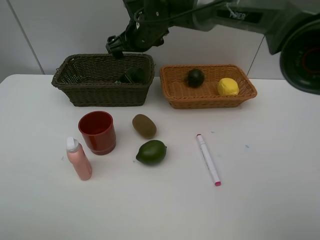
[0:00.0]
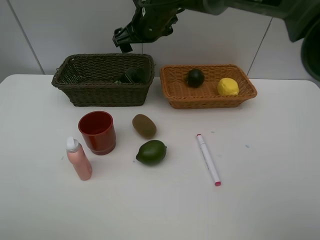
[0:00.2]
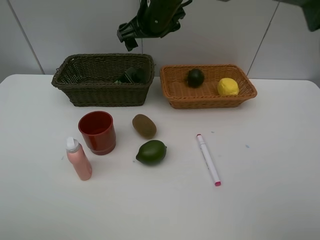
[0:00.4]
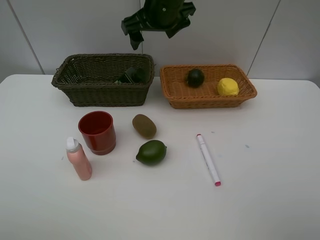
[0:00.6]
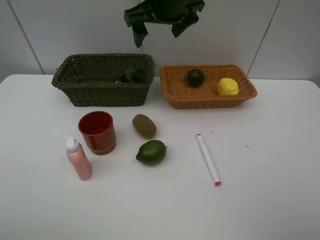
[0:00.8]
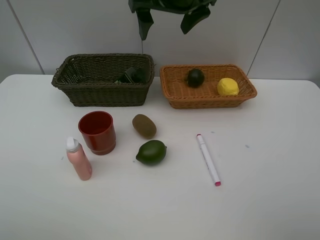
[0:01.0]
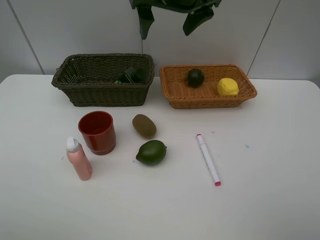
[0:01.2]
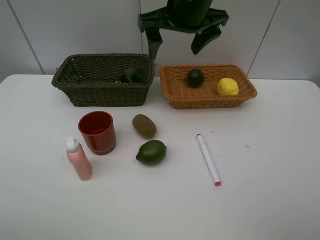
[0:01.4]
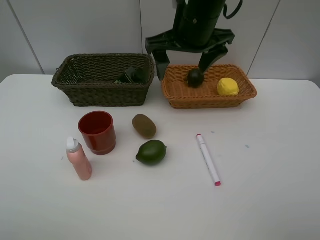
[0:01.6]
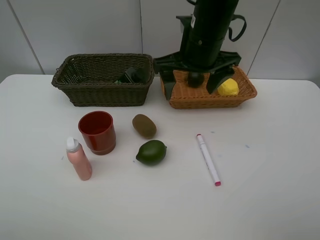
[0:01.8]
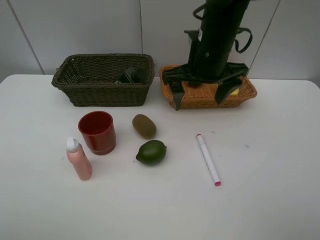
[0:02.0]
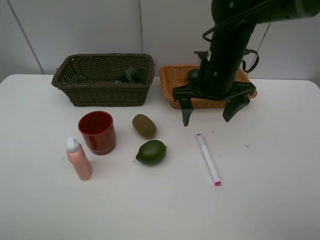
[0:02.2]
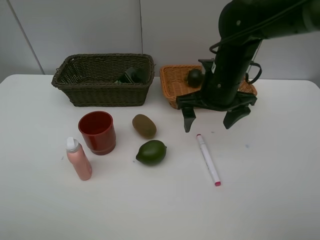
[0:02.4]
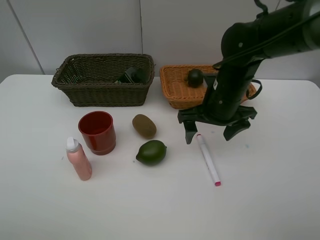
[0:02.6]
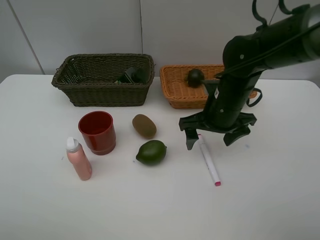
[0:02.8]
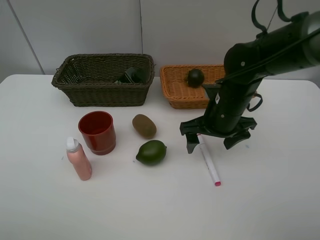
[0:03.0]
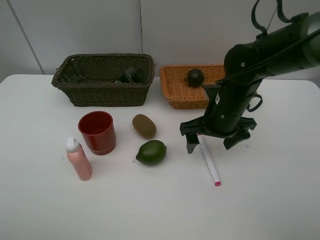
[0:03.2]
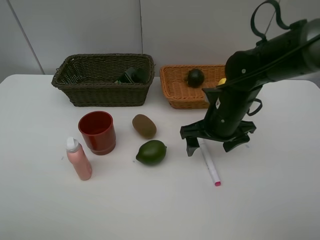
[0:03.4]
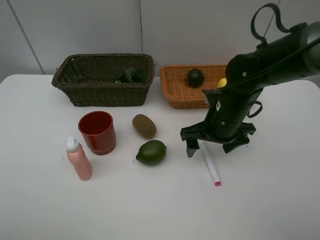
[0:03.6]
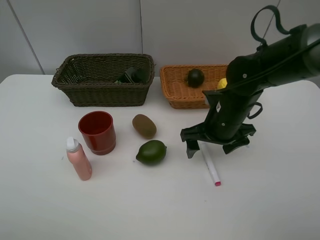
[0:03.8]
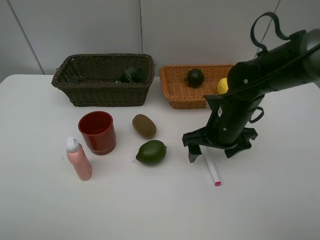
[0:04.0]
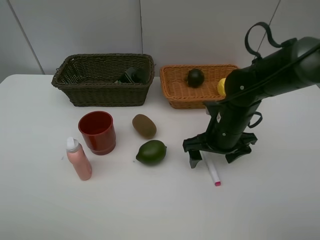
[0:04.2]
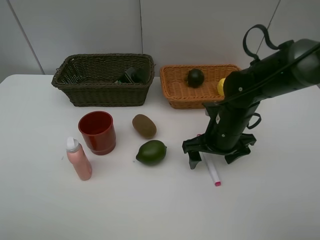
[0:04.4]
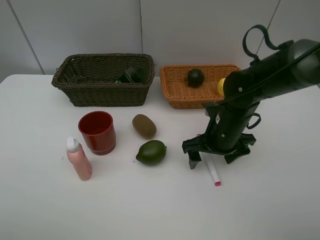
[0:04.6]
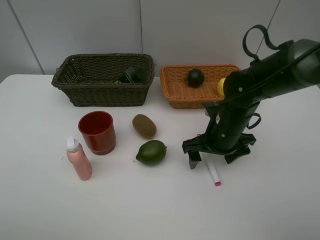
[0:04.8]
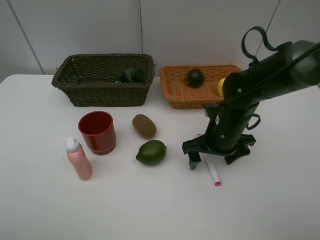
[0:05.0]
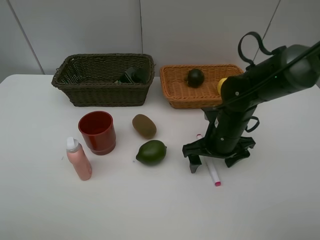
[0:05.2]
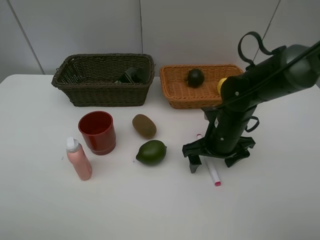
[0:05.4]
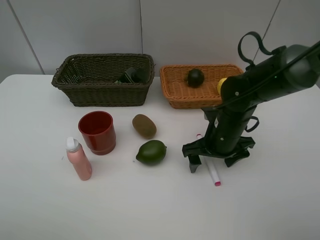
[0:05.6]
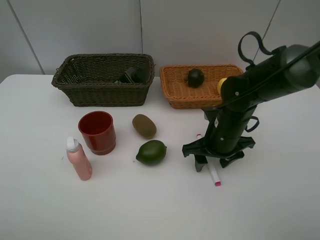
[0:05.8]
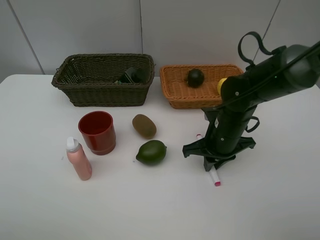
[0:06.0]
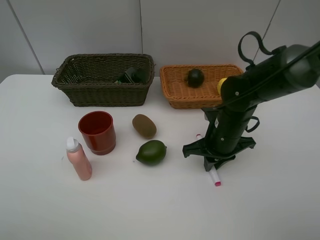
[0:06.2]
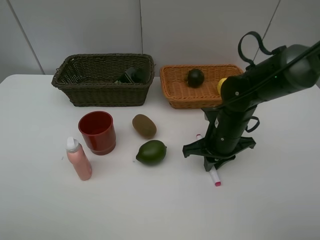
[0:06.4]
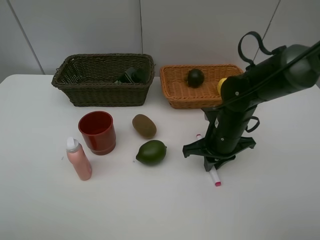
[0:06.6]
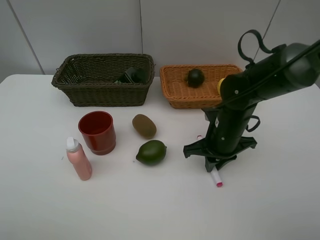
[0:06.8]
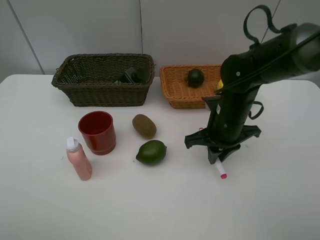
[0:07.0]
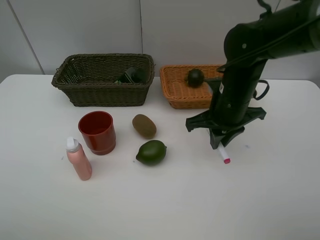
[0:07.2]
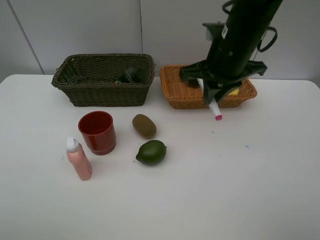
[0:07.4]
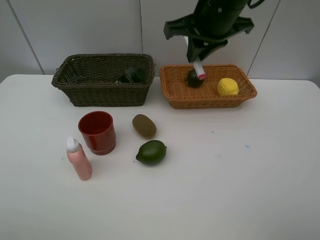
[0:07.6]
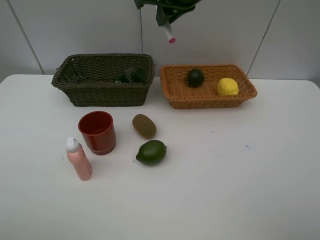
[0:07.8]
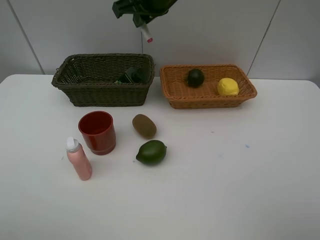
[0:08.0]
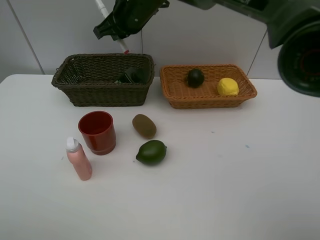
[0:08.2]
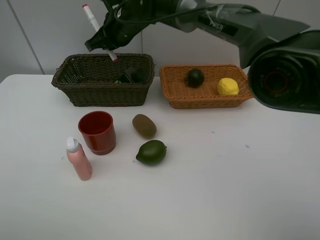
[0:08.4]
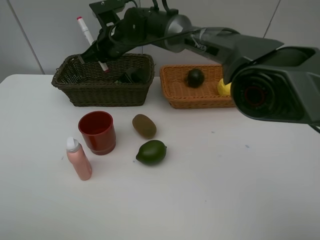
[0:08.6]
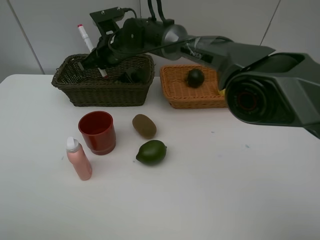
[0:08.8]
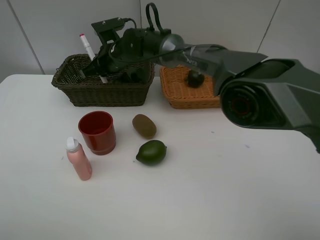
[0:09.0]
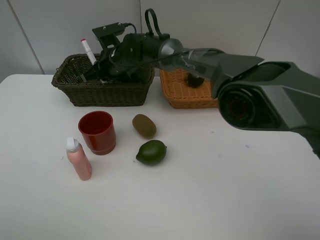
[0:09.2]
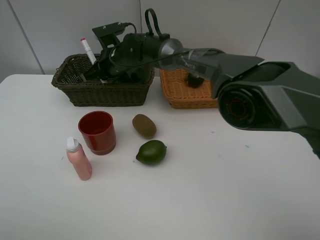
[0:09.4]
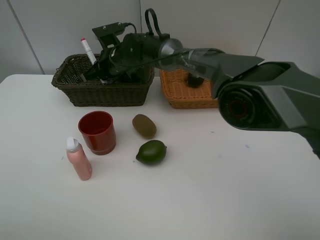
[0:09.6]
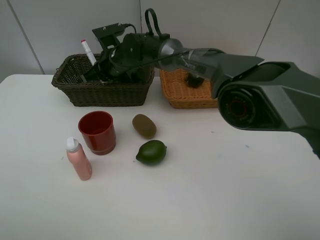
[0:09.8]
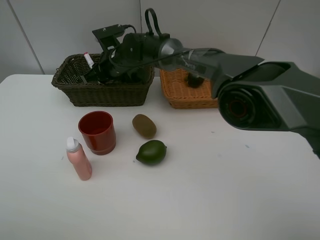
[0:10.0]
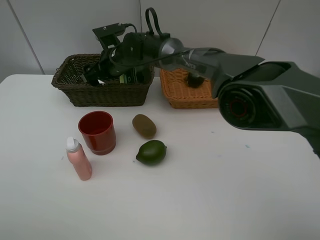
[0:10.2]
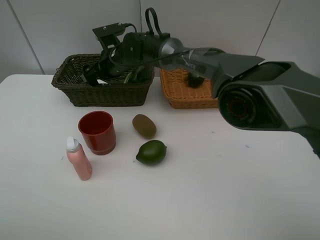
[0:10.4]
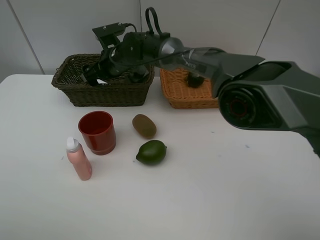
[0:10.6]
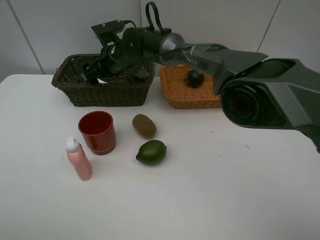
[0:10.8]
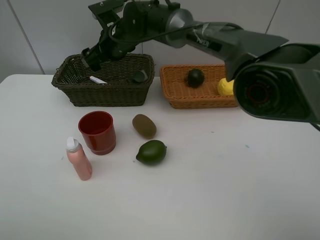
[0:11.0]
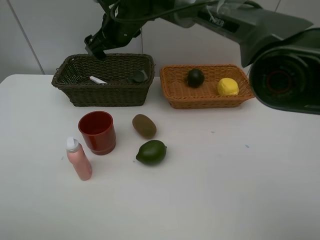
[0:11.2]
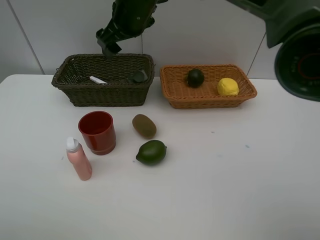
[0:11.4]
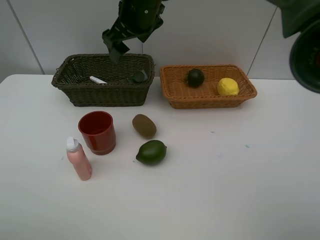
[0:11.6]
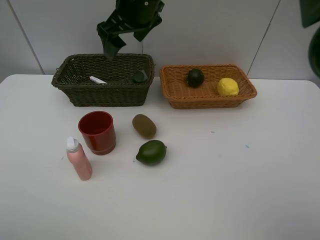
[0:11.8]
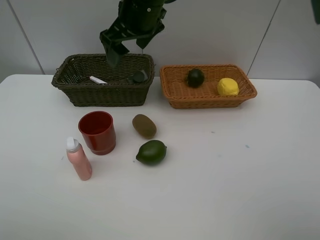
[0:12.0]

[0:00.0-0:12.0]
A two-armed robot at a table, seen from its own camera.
Task of the whole recording: Place multiple objects separately in different baskets.
Step, 0:00.0 to 0:07.0: Pick up pink marker pen with right gripper.
Step, 0:07.2 to 0:11.0: Place the pink marker pen in the dark basket with right gripper.
0:00.0 to 0:01.6: The right gripper moves backward, to the right and upward, some 15 cm.
0:01.6 to 0:03.0: The right gripper moves downward and to the right, about 15 cm.
0:03.0 to 0:04.4: There are only small adjustments of the grippers.
0:04.4 to 0:06.0: The right gripper closes its fingers.
0:06.0 to 0:07.6: The right gripper goes some 20 cm upward.
0:07.6 to 0:09.0: The right gripper moves to the left, downward and forward, some 25 cm.
0:09.0 to 0:10.4: The right gripper opens its fingers.
0:10.4 to 0:12.0: The right gripper shifts roughly 20 cm upward, backward and to the right.

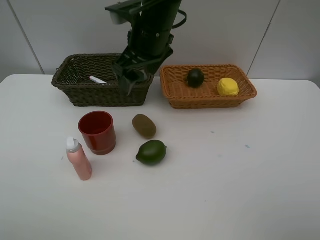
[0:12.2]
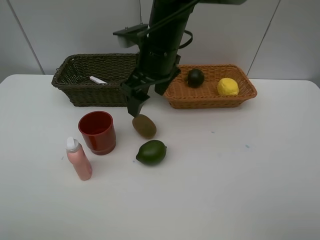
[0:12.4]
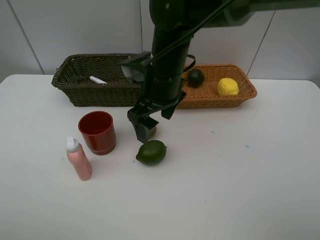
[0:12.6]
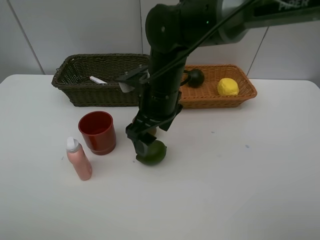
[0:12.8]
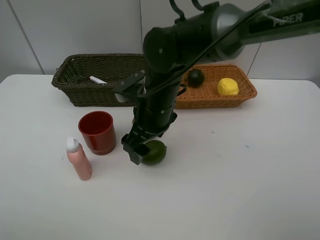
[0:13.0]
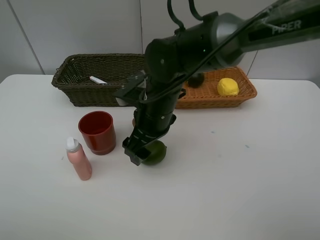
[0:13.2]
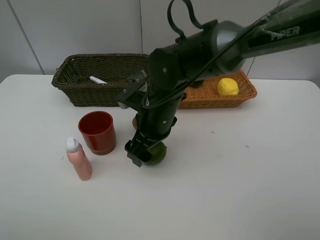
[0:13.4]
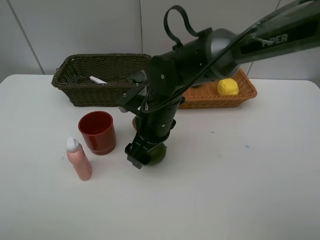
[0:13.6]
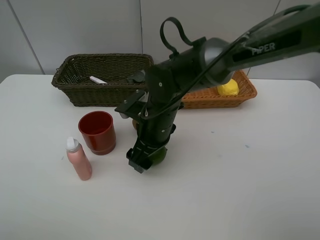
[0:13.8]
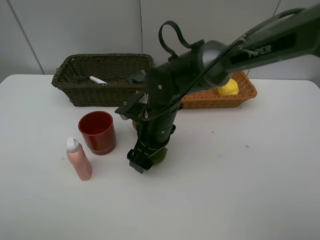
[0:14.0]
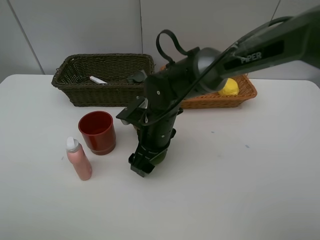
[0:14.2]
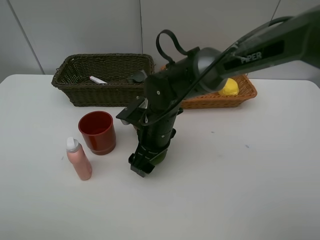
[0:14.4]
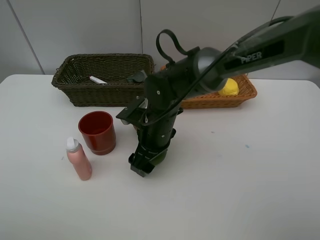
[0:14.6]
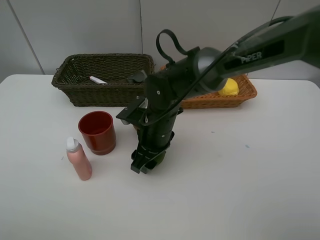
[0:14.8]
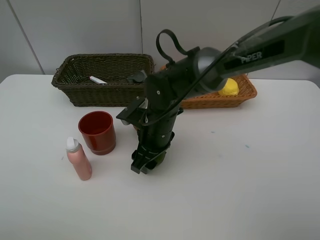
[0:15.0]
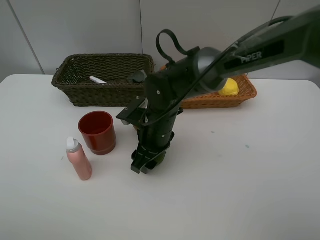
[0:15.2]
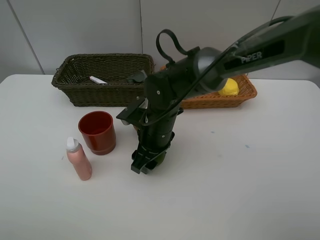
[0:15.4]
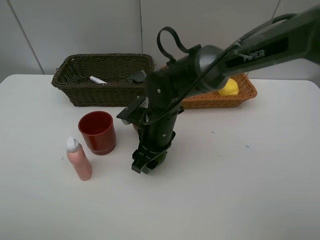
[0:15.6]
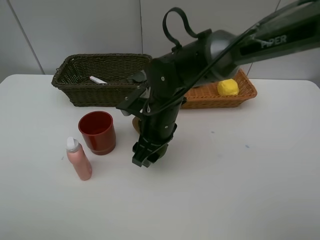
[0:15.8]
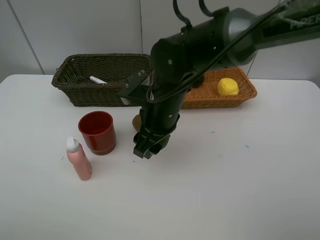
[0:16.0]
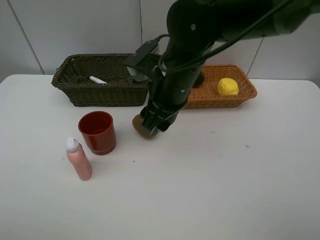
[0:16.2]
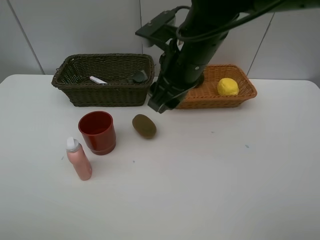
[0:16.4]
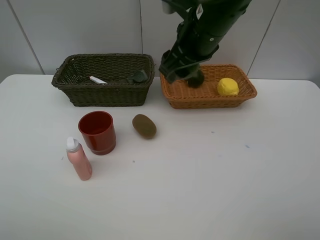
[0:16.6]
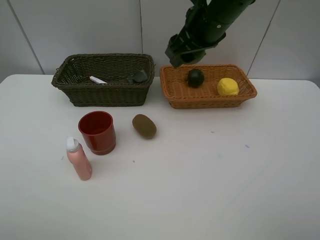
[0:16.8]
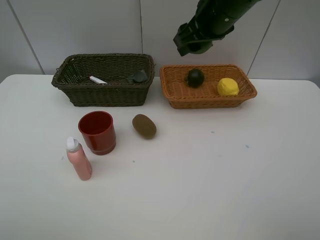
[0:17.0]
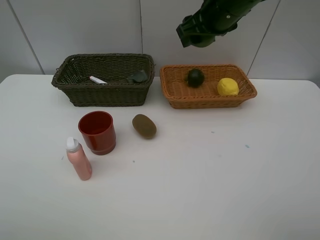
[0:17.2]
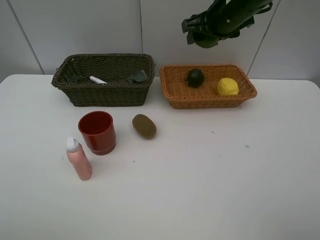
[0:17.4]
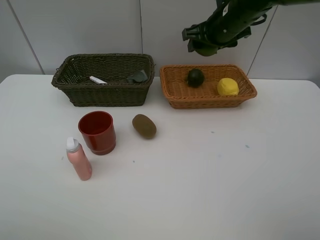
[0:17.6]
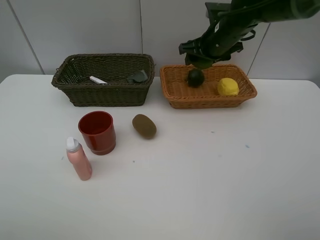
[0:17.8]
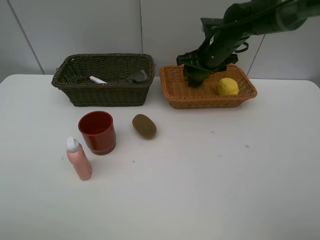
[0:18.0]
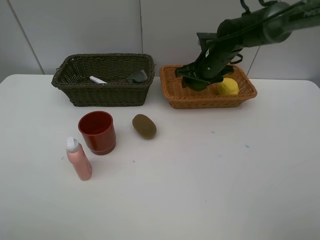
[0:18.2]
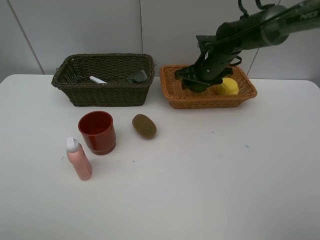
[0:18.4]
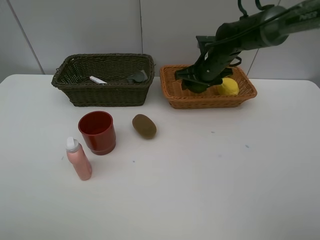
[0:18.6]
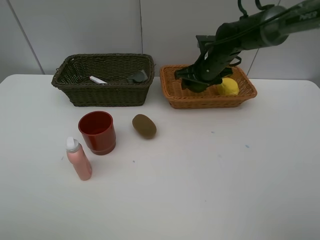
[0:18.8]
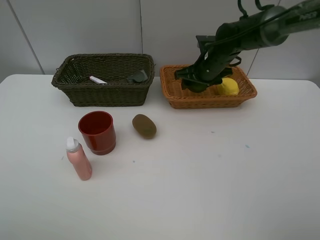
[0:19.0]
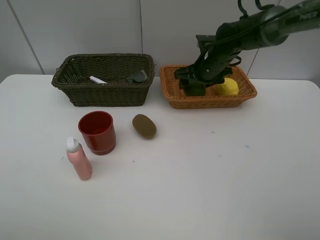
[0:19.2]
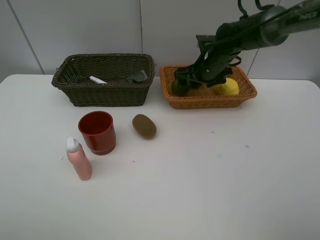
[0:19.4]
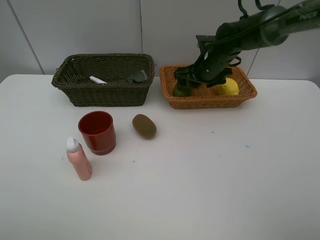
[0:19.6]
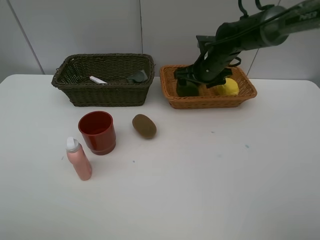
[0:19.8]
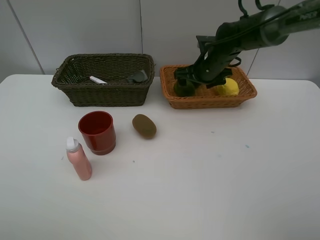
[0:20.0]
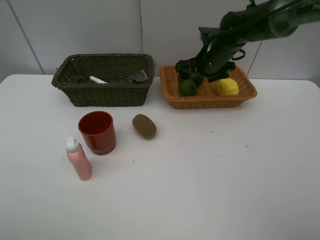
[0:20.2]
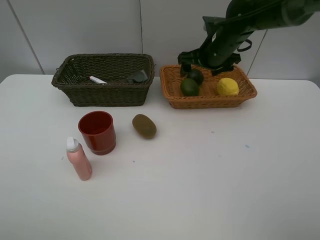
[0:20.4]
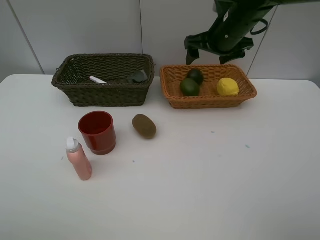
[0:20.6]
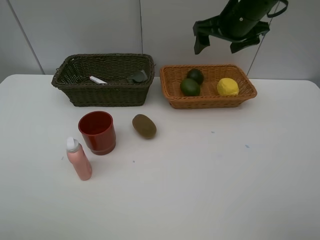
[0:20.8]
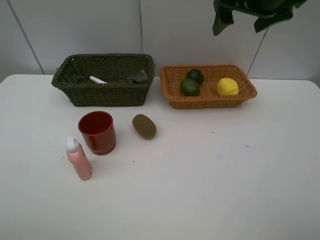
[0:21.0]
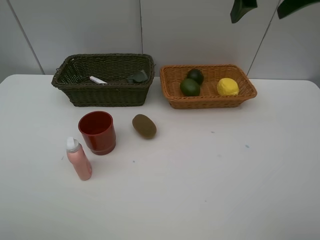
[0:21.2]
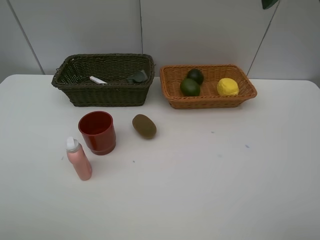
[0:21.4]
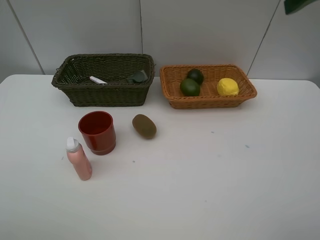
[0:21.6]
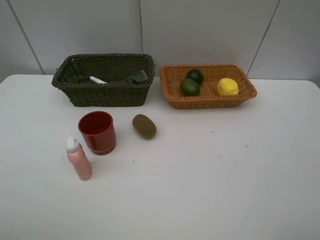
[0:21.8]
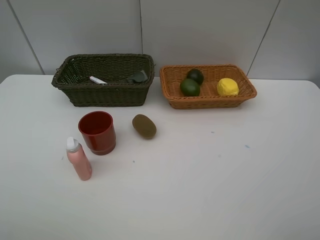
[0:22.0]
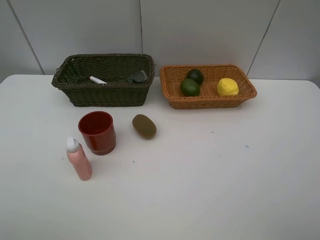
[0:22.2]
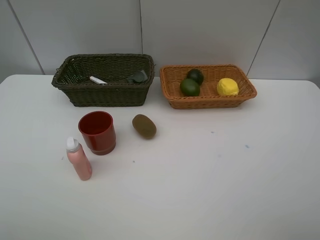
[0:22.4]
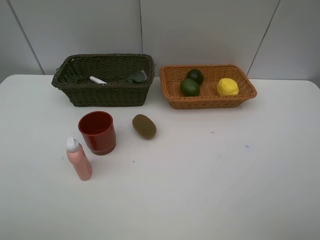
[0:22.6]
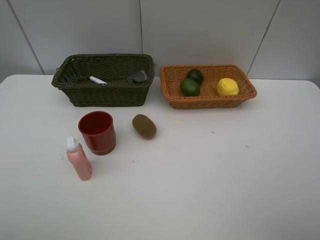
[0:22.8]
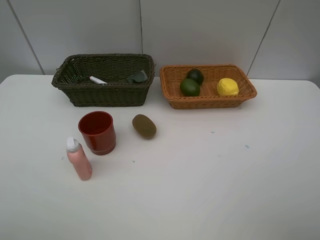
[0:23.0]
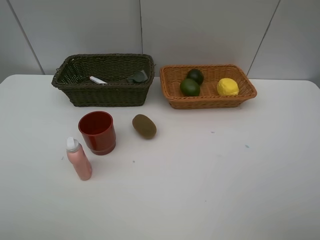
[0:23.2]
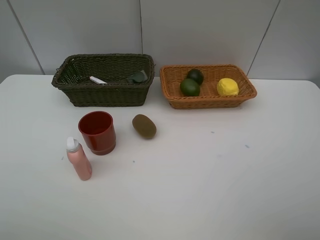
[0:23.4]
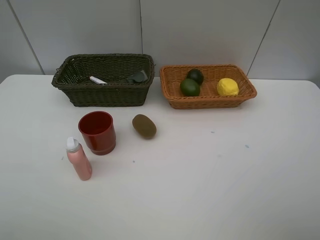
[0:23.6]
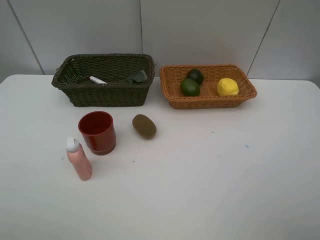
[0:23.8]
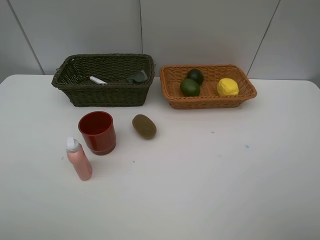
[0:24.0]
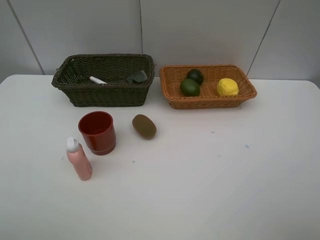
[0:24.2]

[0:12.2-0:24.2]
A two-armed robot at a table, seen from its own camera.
Task of the whole recording: Place multiple objects separately in different baskets.
Step, 0:12.2 to 0:15.8: Pick up the lime with right gripper.
Step, 0:16.0 to 0:20.4: Place the lime in the light basket with right gripper.
0:12.2 to 0:13.8: The right gripper travels downward and backward by roughly 15 cm.
0:13.8 to 0:15.2: The grippers make only small movements.
0:15.2 to 0:16.6: The right gripper heads upward and to the right, covering approximately 20 cm.
0:16.6 to 0:18.2: The right gripper heads downward, forward and to the right, covering some 20 cm.
0:18.2 to 0:19.8: Both grippers stay put.
0:19.8 to 0:21.2: The right gripper goes approximately 25 cm upward and backward.
0:21.2 to 0:22.6: The right gripper travels backward by approximately 30 cm.
